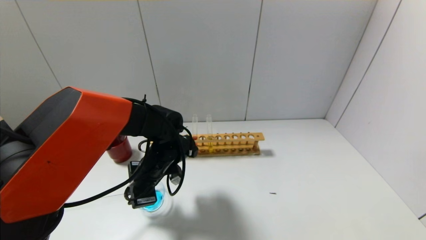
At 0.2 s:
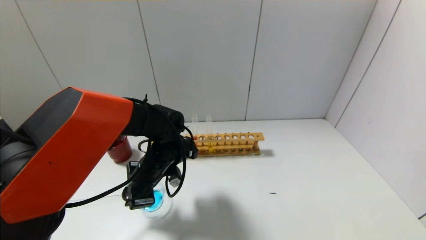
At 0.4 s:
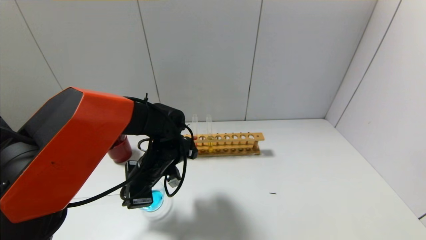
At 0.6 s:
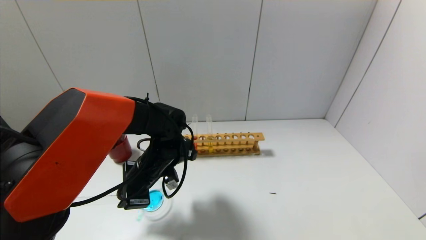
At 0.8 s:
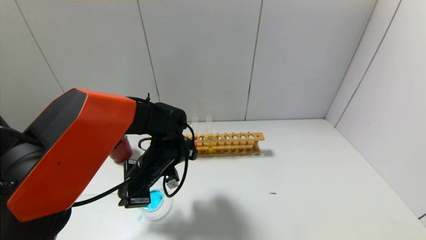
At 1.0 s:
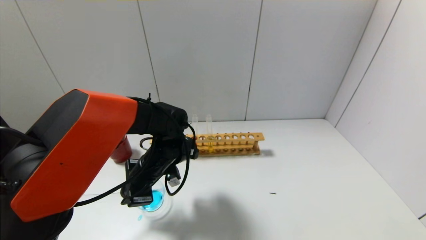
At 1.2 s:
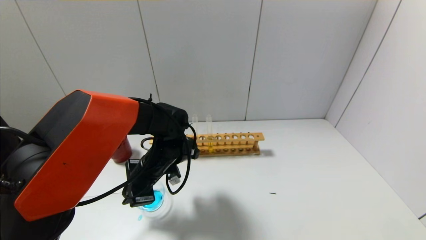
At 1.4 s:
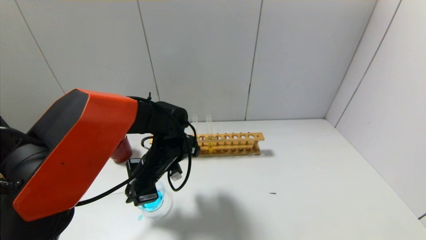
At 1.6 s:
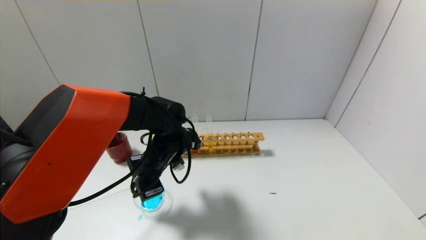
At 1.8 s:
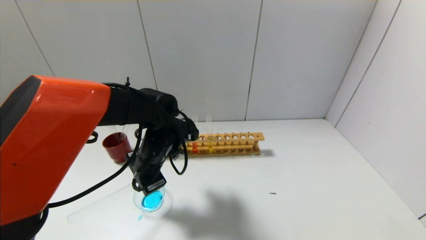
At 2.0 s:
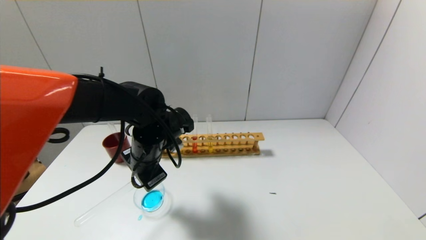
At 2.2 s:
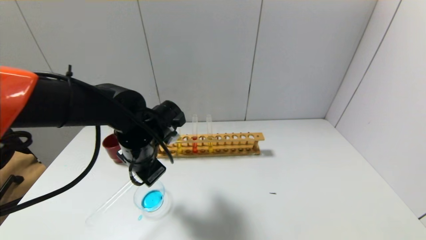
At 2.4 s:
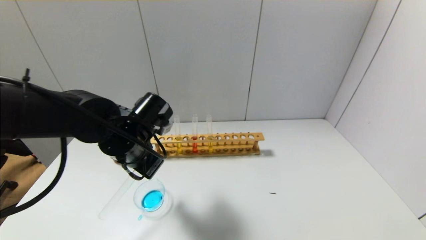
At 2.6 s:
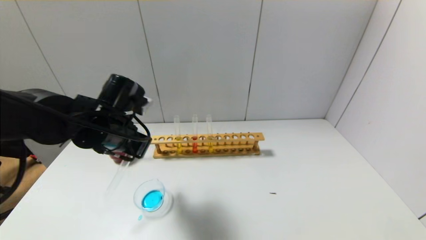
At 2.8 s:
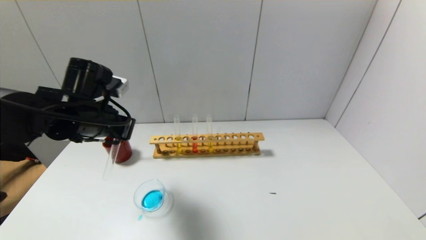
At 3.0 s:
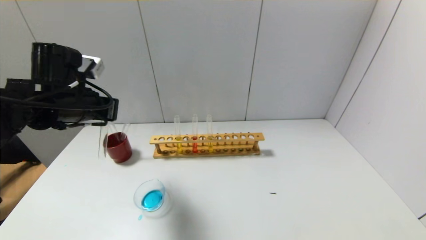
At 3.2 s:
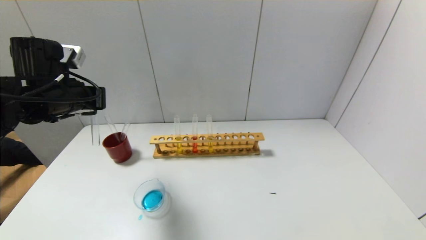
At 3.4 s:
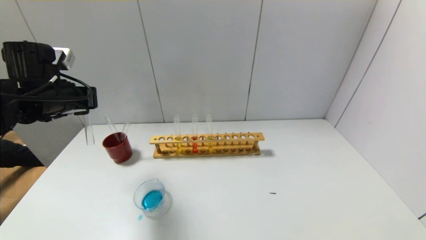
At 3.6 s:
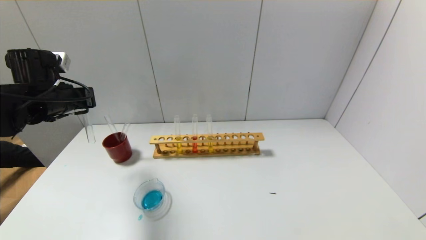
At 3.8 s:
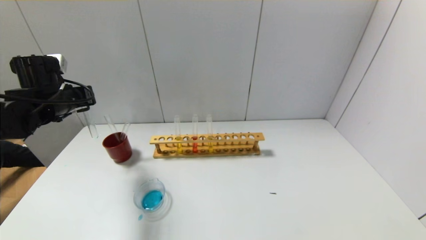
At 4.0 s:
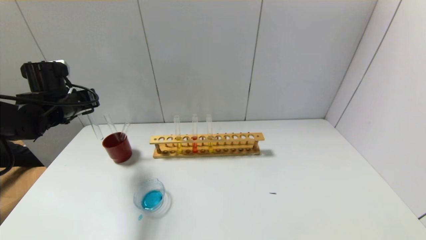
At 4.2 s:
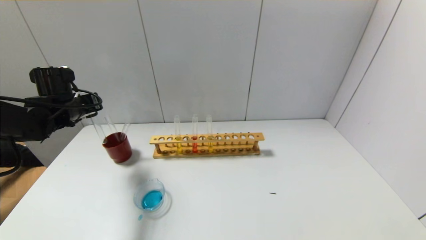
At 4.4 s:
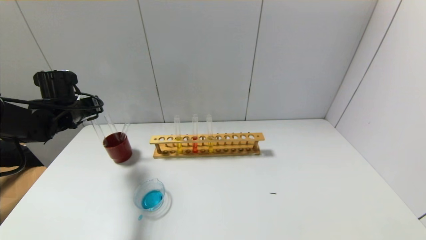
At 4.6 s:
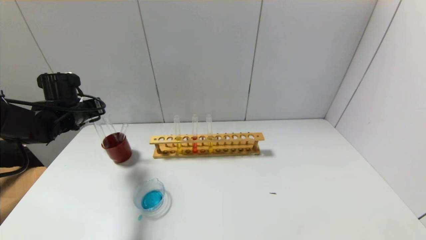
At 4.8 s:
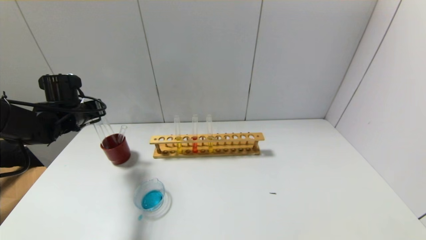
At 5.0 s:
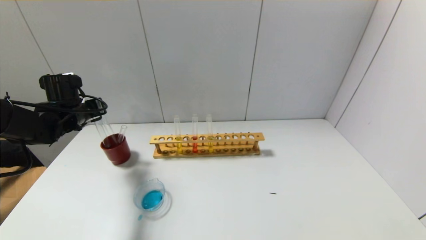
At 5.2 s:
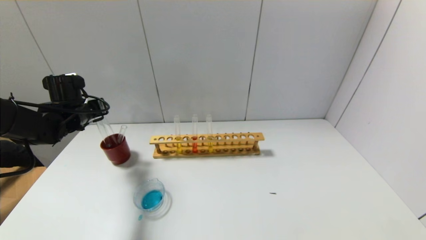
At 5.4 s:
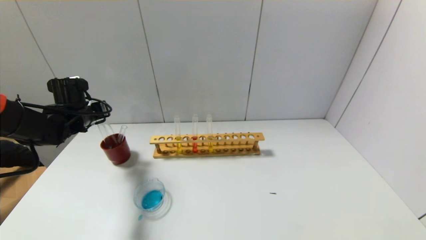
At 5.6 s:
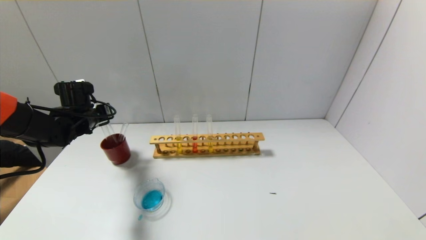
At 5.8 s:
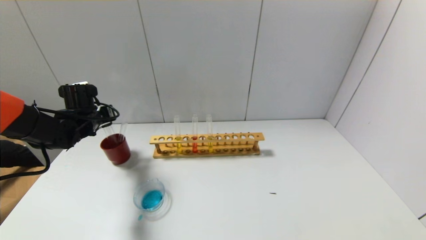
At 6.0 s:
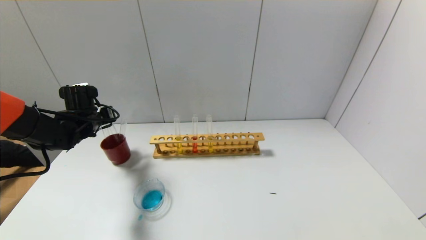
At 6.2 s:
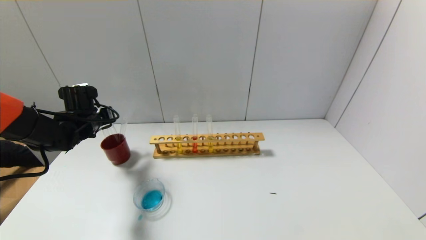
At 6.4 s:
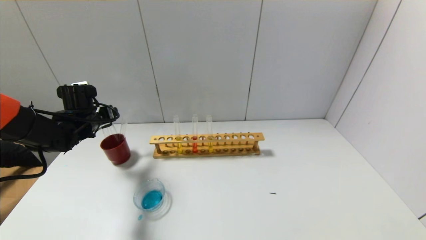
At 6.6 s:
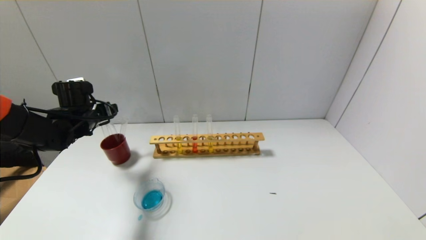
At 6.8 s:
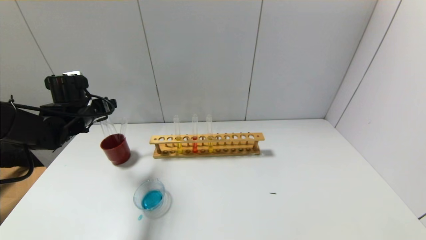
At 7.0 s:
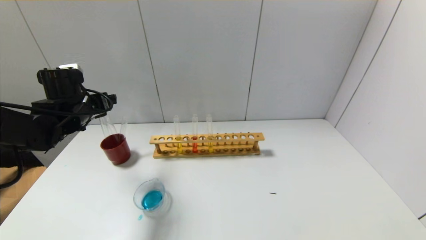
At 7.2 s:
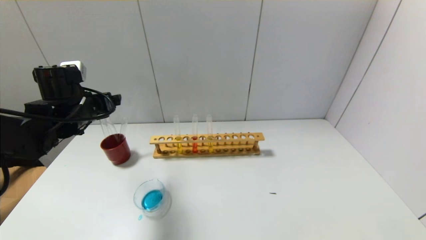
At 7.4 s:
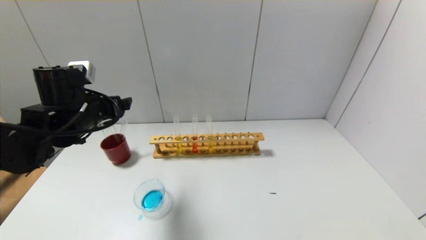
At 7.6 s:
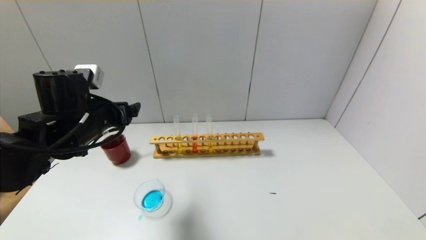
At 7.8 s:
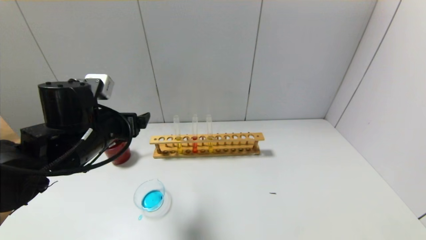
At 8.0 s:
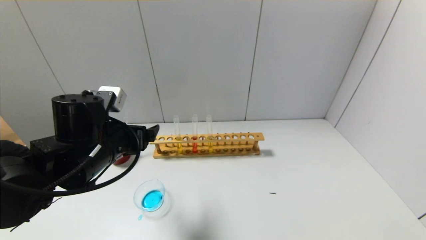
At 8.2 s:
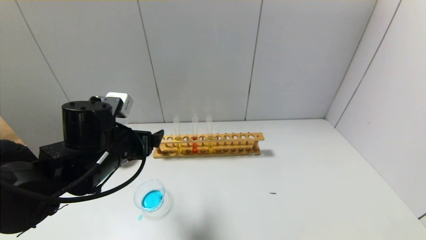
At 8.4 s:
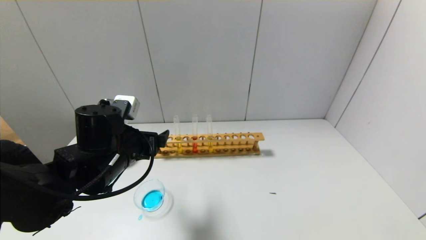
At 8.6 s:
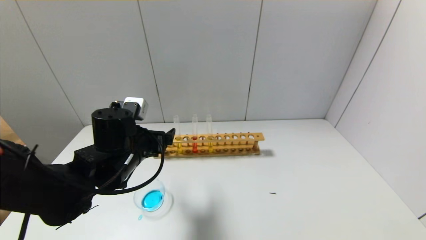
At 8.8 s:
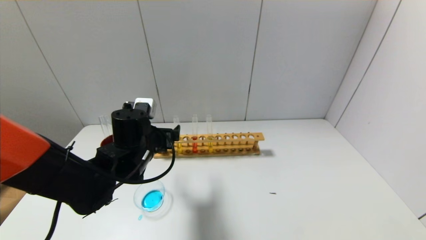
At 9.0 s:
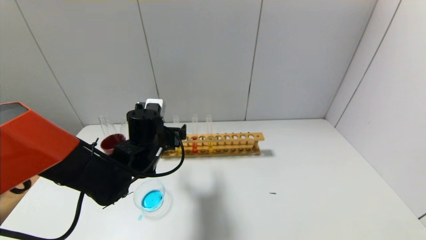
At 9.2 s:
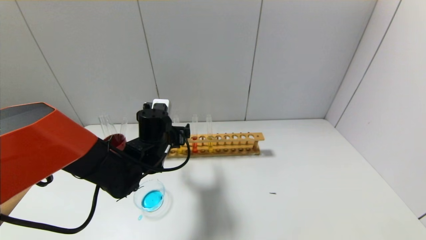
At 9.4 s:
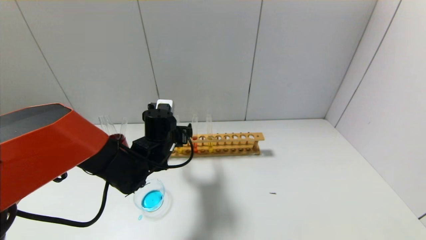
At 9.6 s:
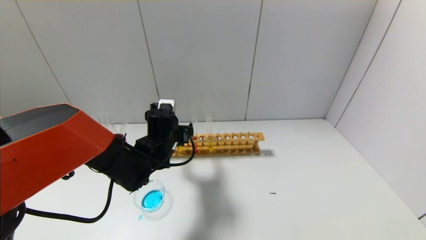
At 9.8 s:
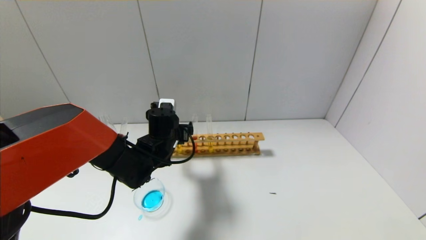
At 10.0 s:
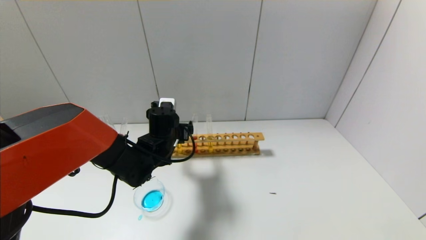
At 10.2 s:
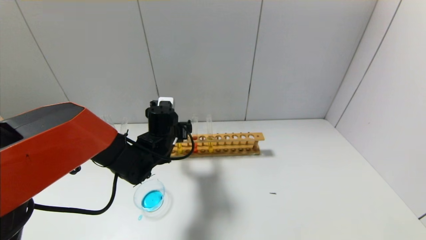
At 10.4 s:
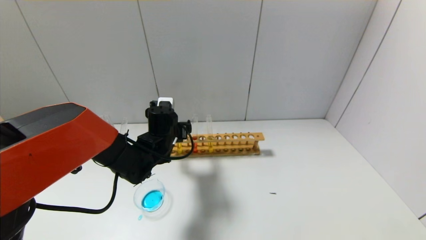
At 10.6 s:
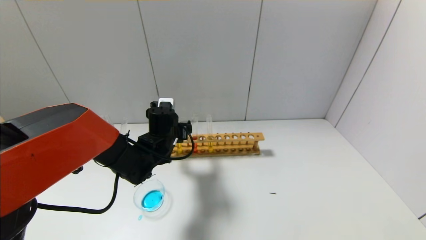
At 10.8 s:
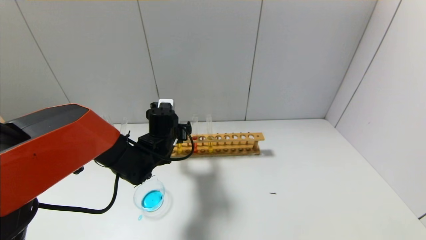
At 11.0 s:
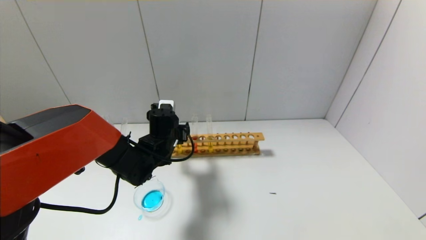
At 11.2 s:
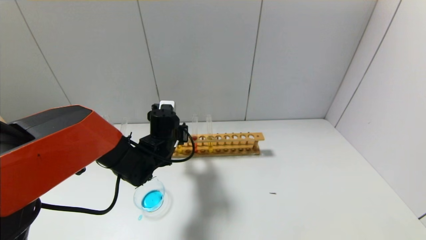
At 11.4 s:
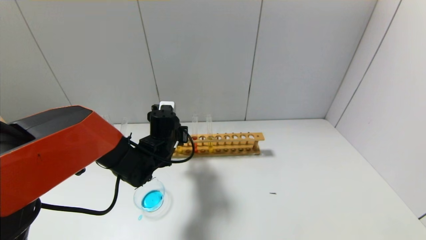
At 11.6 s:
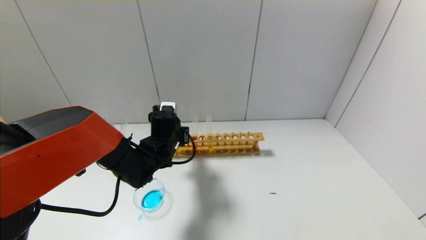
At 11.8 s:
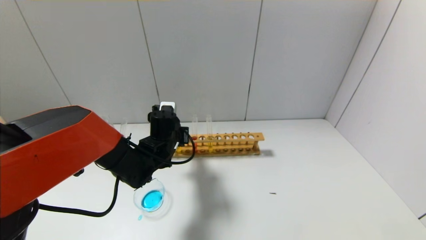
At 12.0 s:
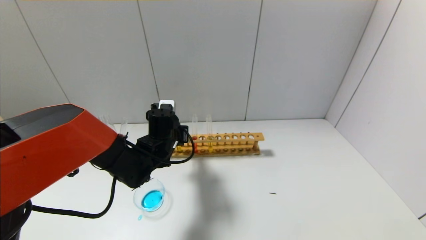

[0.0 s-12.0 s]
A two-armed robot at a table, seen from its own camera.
Step, 1.8 to 6.0 s: Place the test tube into the brown cup with the left gripper.
Step, 6.2 to 11.4 s: Grasp the yellow reagent with the left gripper.
0.0 to 1.6 s: The grippers move only a little.
1.6 to 3.0 s: The left gripper goes roughly 20 cm to the left and upward.
3.0 to 4.4 s: The left gripper moves forward, to the left and downward, roughly 15 cm.
4.4 to 6.0 s: There are only small adjustments of the grippers.
6.0 to 7.6 s: The left gripper travels backward, to the right and upward by approximately 15 cm, and opens.
7.6 to 9.0 s: The left gripper travels to the right and downward by roughly 15 cm.
9.0 to 10.4 s: The left gripper is displaced forward by some 5 cm.
10.4 to 12.0 s: The left gripper closes its fingers.

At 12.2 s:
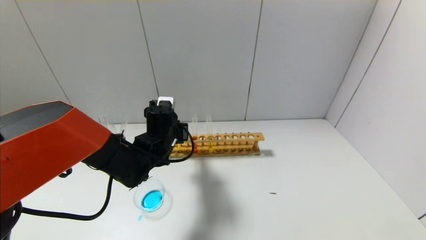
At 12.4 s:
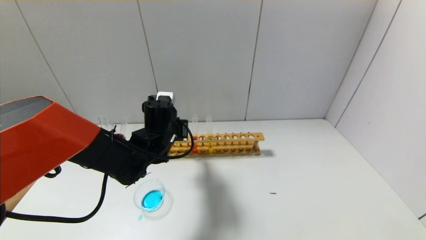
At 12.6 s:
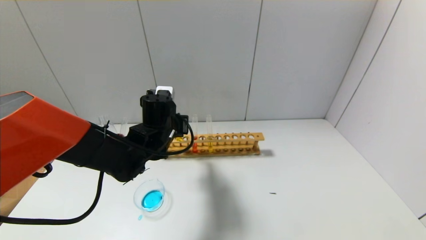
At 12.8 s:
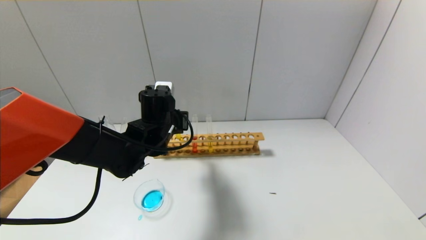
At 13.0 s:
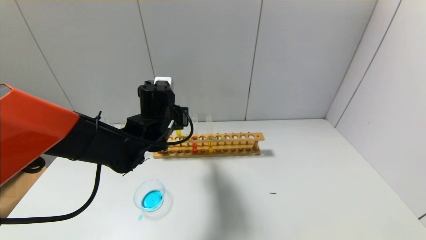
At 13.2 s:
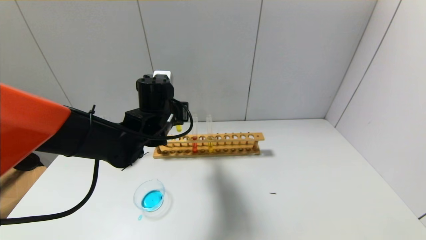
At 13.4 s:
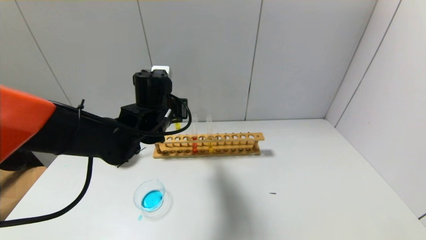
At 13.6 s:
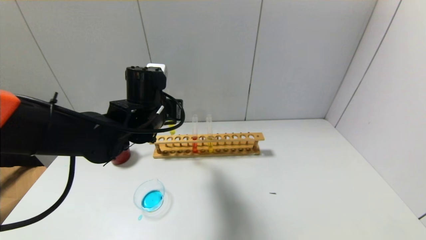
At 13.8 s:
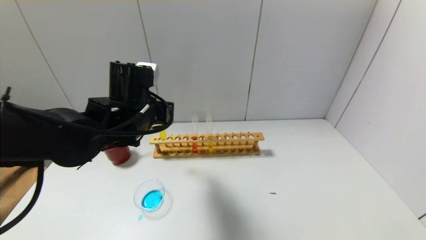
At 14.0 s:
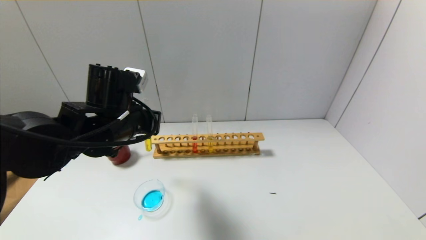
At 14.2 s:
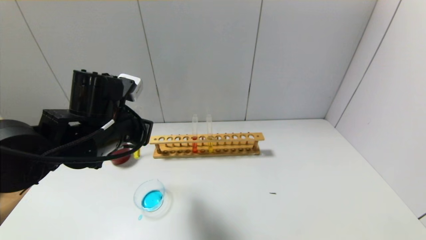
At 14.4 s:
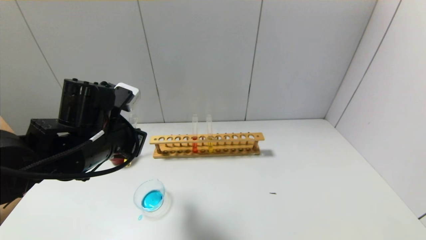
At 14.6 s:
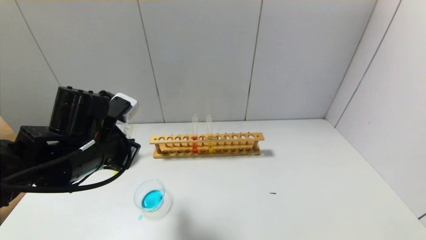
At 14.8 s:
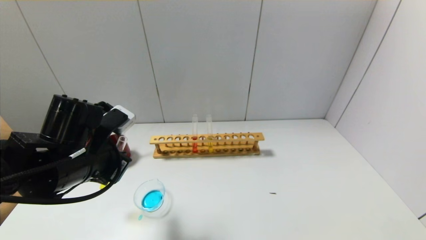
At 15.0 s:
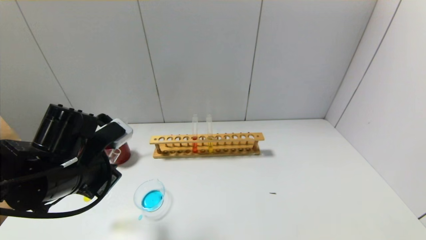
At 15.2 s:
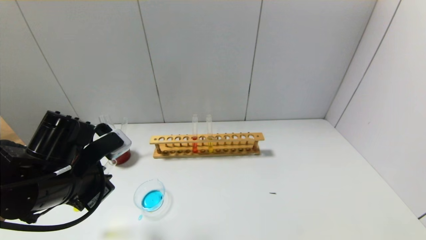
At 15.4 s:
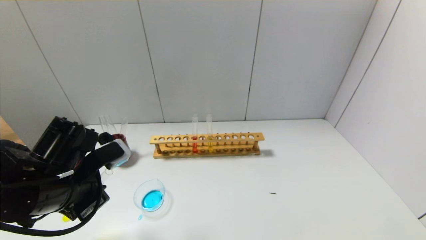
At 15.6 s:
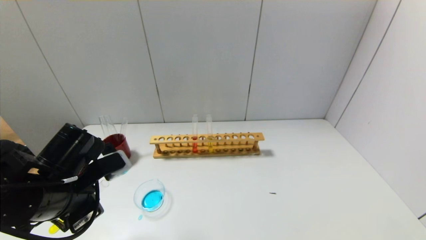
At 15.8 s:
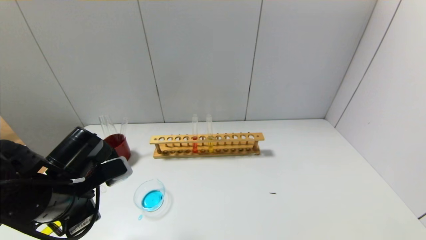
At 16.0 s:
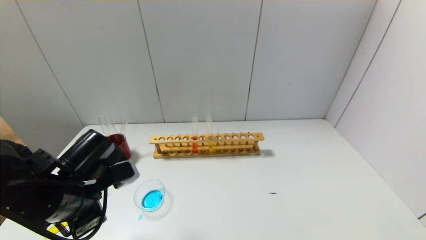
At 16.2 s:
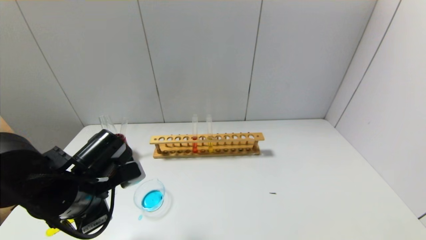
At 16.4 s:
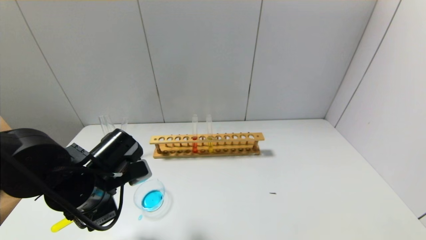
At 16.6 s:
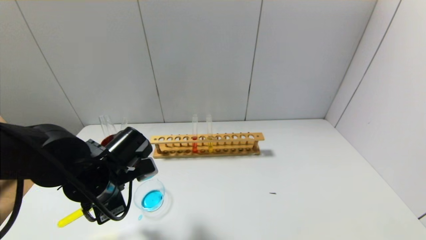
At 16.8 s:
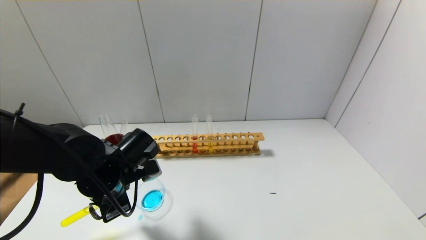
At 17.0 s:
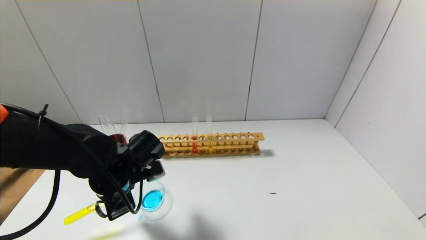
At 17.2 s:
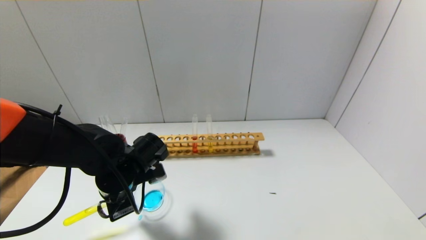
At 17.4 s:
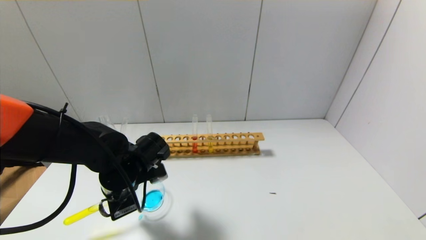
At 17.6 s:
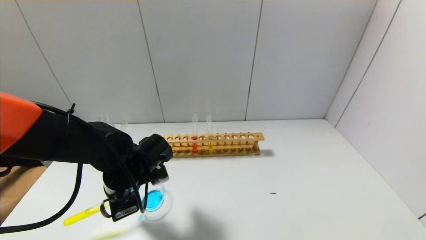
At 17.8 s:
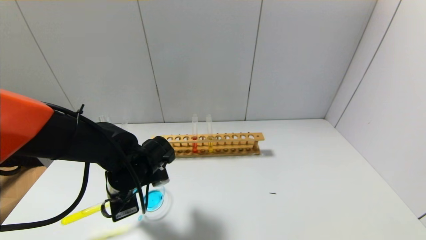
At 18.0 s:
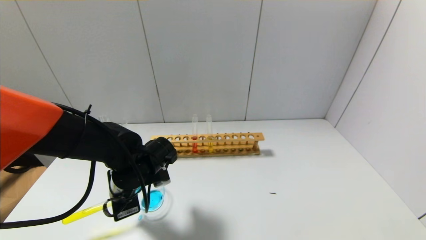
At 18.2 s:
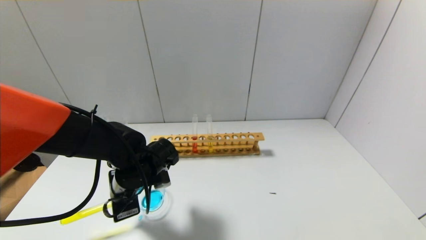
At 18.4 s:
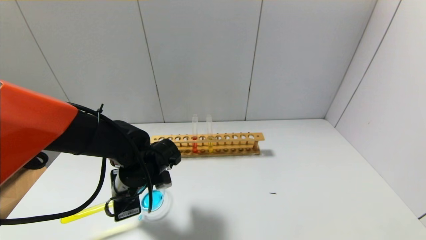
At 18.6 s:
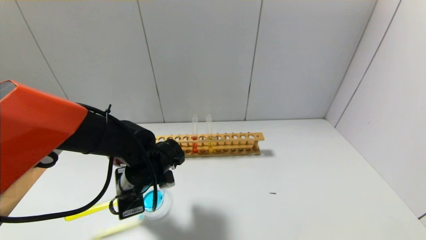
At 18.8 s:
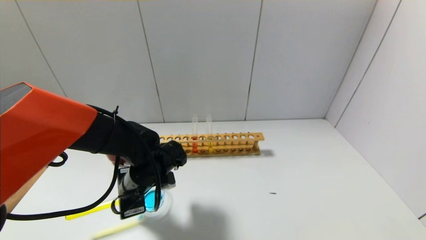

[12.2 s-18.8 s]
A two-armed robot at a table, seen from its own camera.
12.2 to 13.8 s: The left gripper moves upward and backward, roughly 10 cm.
13.8 to 15.4 s: The left gripper shifts about 15 cm backward, to the left and downward.
15.4 to 17.2 s: The left gripper heads forward, downward and to the right, covering some 10 cm.
17.2 to 18.8 s: The grippers make only small movements.
